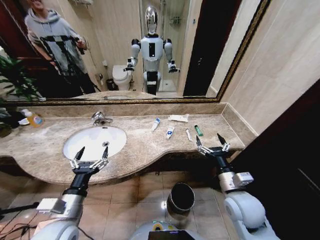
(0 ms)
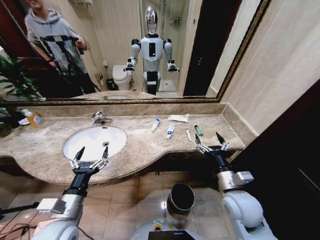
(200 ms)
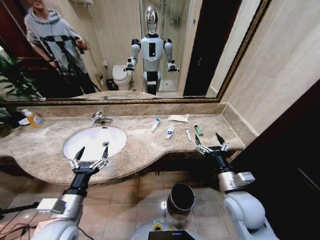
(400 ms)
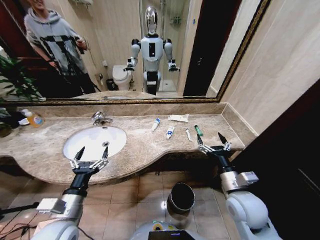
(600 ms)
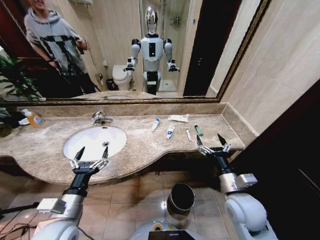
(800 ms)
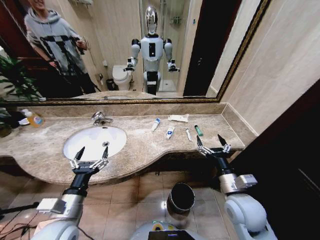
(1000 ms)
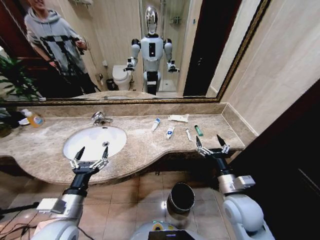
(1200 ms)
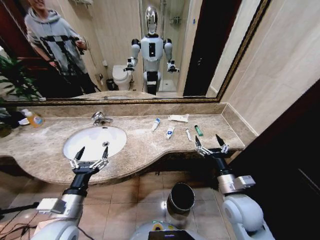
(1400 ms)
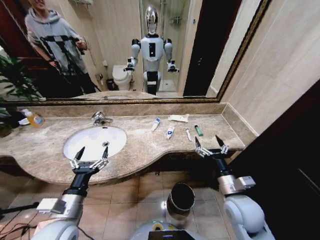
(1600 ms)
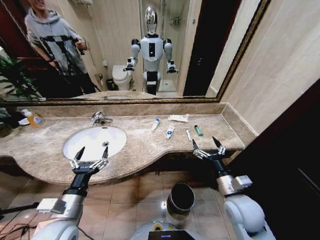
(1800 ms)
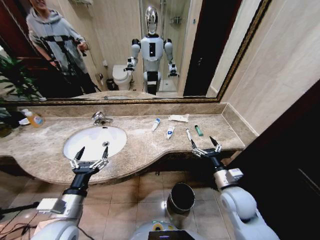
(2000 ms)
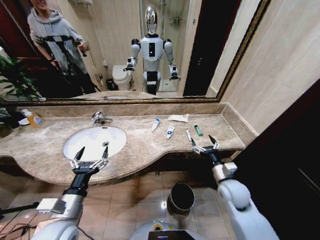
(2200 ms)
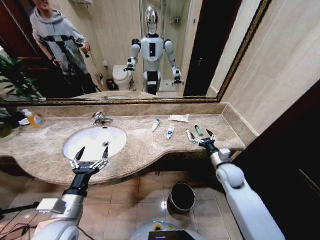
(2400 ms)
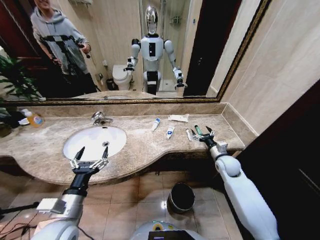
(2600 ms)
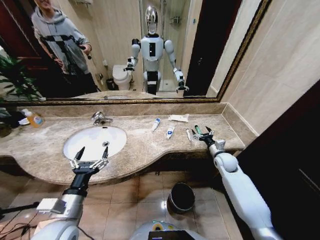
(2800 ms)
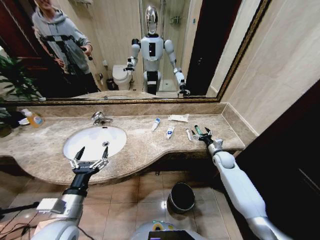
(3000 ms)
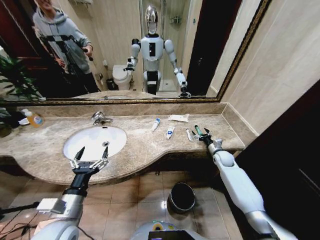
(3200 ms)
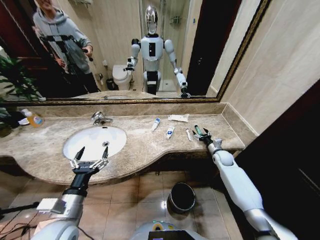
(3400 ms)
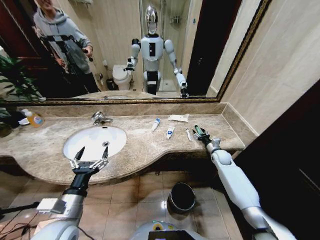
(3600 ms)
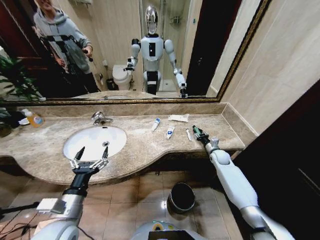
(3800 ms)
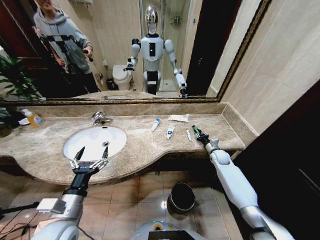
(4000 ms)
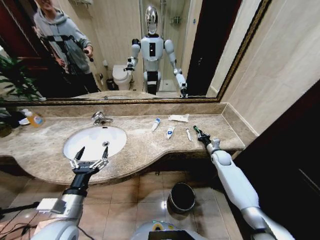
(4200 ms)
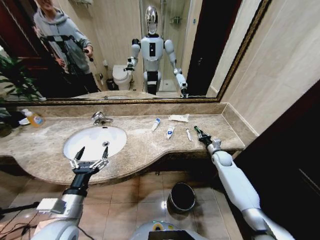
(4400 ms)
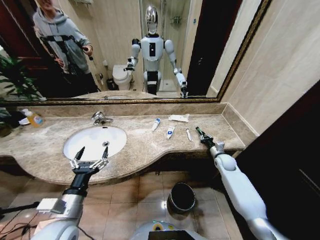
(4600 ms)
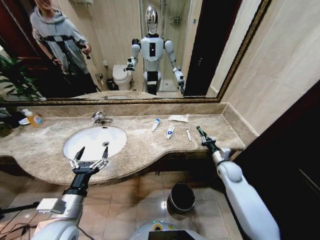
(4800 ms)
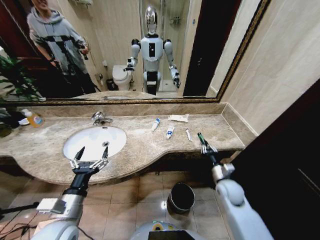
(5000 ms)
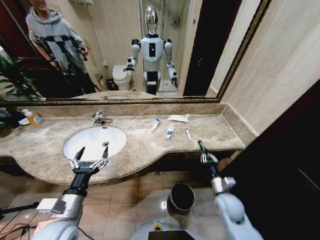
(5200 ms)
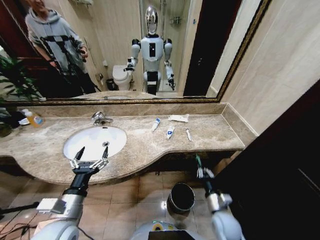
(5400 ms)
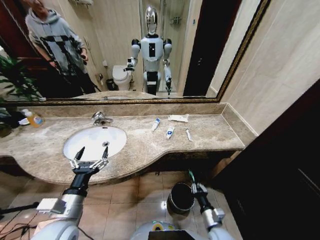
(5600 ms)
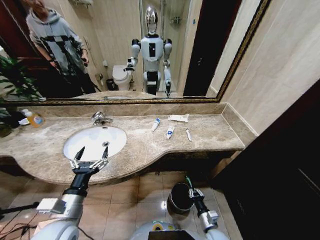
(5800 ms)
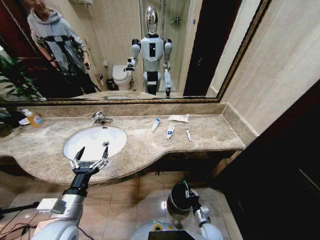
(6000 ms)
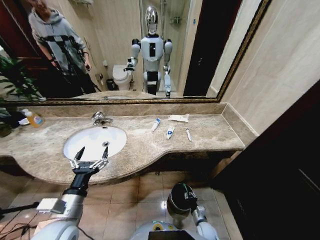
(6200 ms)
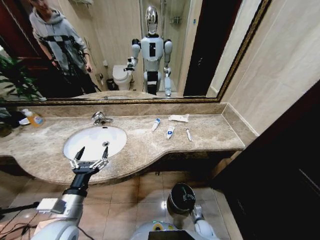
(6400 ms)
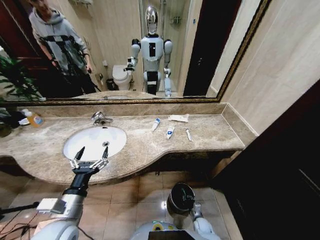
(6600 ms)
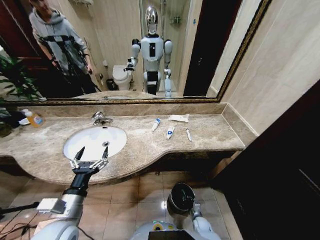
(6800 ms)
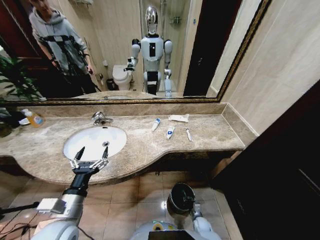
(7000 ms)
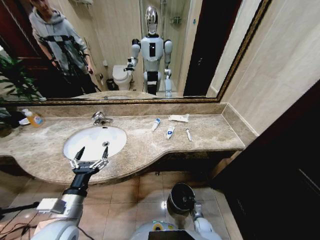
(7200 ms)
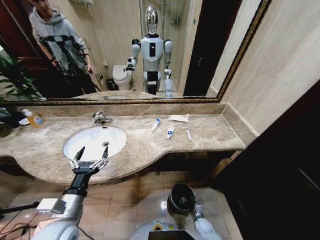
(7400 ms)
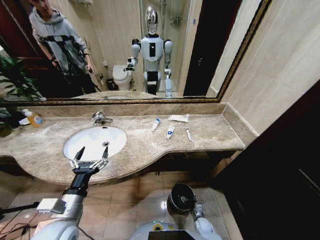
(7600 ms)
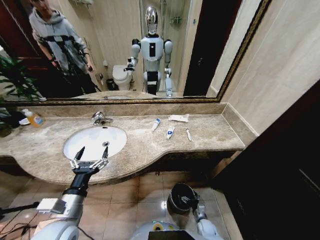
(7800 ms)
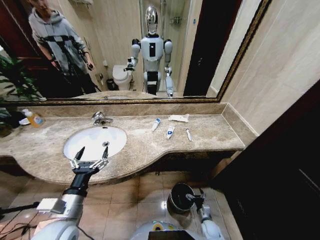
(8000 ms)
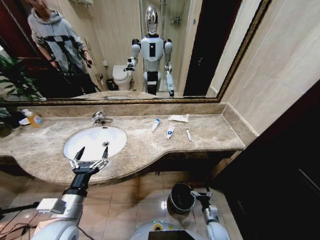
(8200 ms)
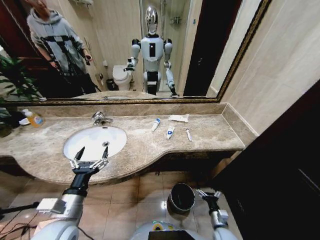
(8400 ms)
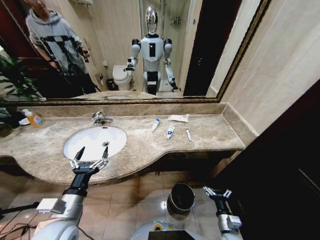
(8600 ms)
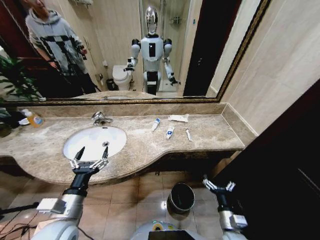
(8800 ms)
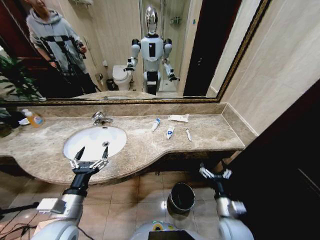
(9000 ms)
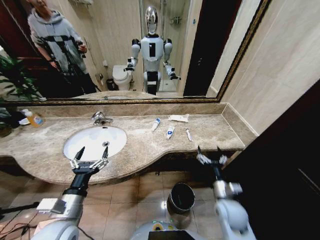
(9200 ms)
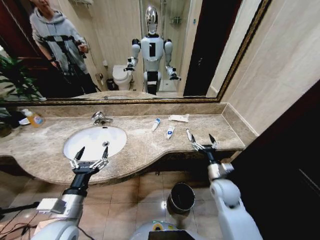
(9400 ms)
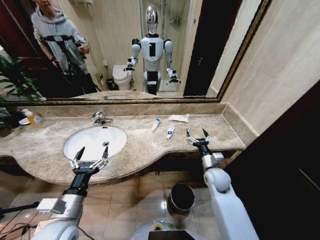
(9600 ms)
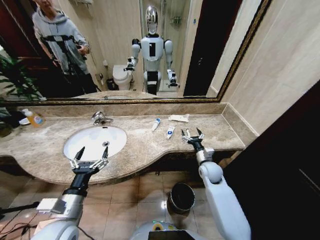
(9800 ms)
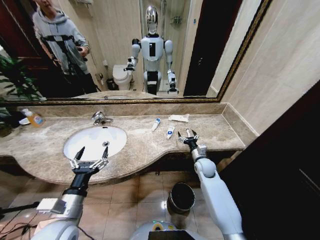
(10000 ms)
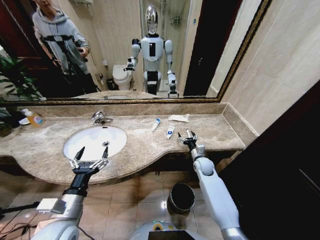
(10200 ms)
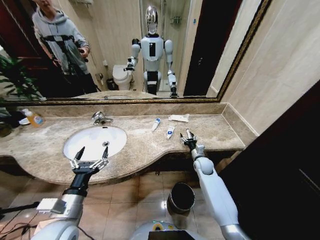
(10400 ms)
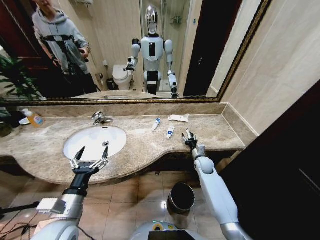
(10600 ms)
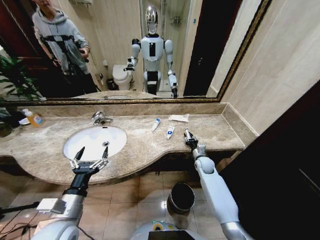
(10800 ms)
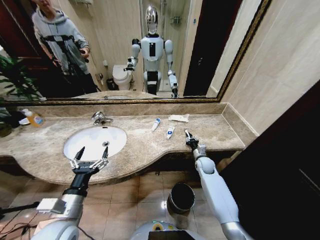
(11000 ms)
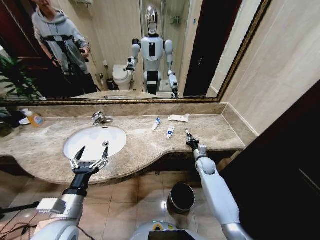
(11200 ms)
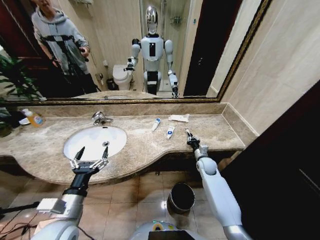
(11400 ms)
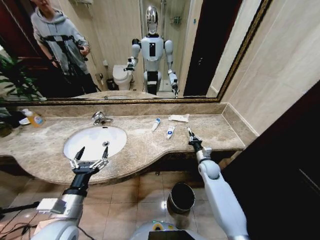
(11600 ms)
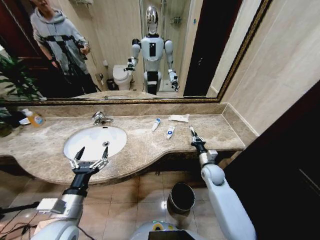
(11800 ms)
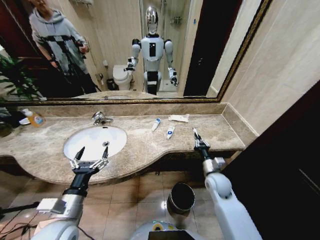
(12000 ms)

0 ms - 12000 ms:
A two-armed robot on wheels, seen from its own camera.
Task of the whole recording: Pick up the trash from the sink and place it in the trash bin.
1600 ms - 3000 ms: The right gripper heads forward, to the right and downward, covering about 30 cm.
3000 ms - 4400 ms: The right gripper closes.
4400 ms - 6000 ms: The right gripper travels backward, downward and to the left by some 40 cm.
6000 ms - 7600 ms: The right gripper is displaced downward by roughly 10 cm, and opens up.
7600 ms - 9000 ms: The right gripper travels upward by approximately 30 cm.
9000 ms - 10400 ms: The right gripper goes approximately 25 cm forward.
10400 ms - 12000 ms: The right gripper moves backward, some 10 cm, and closes.

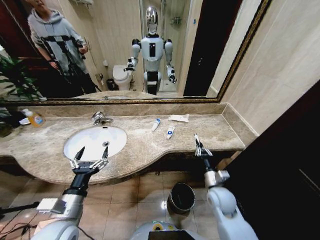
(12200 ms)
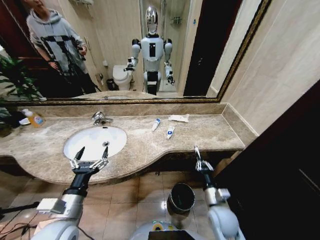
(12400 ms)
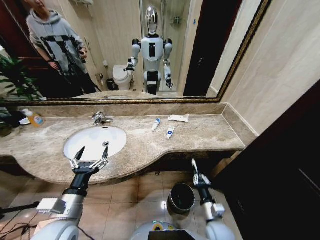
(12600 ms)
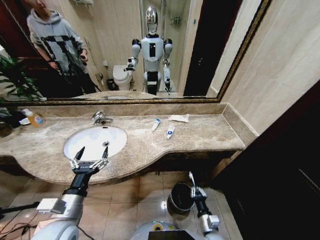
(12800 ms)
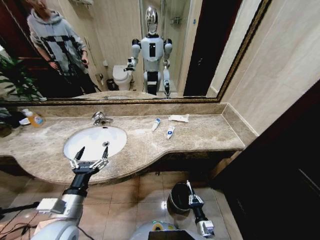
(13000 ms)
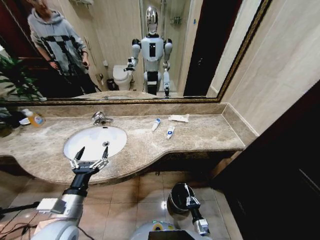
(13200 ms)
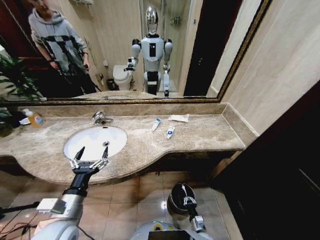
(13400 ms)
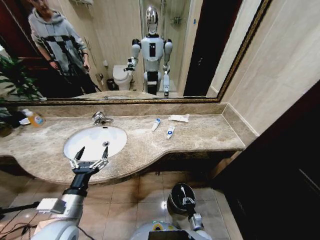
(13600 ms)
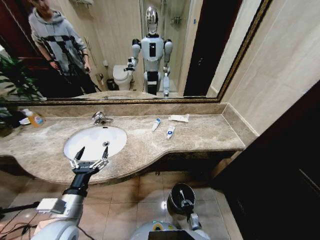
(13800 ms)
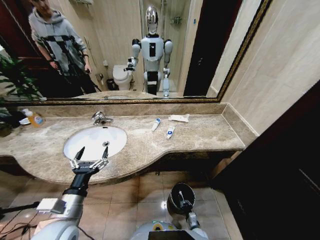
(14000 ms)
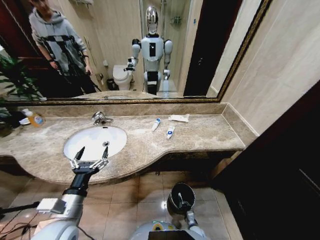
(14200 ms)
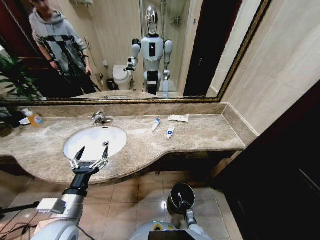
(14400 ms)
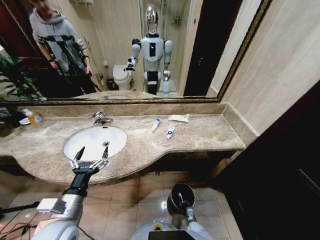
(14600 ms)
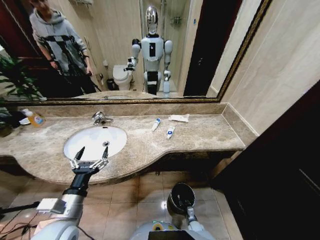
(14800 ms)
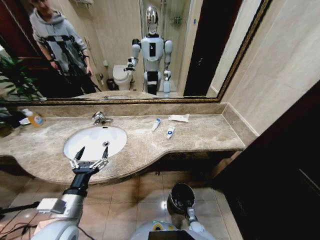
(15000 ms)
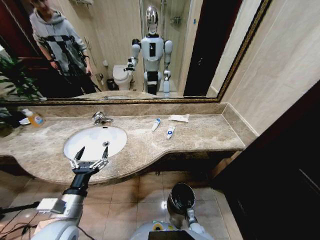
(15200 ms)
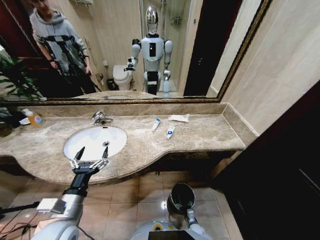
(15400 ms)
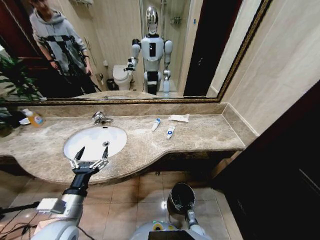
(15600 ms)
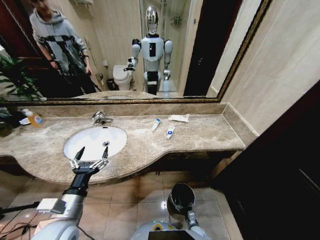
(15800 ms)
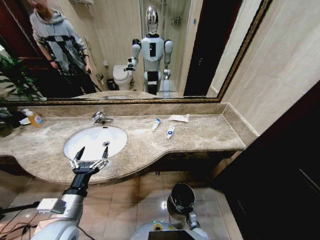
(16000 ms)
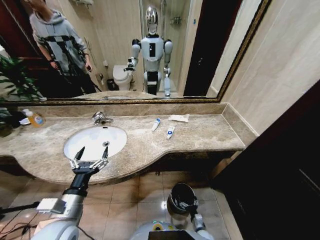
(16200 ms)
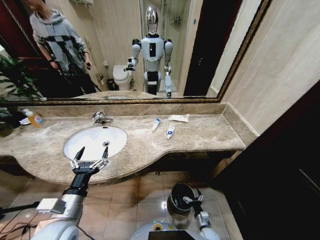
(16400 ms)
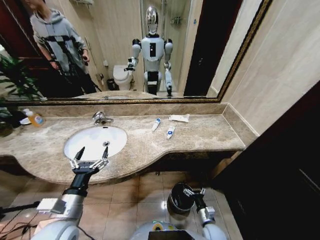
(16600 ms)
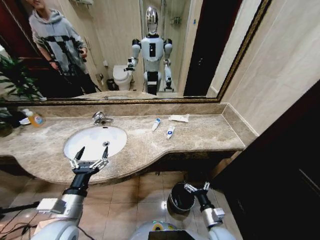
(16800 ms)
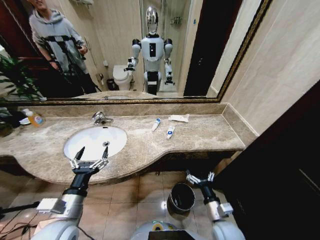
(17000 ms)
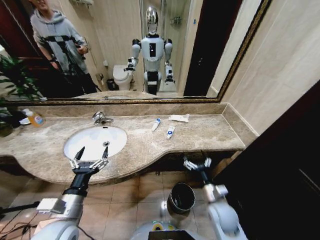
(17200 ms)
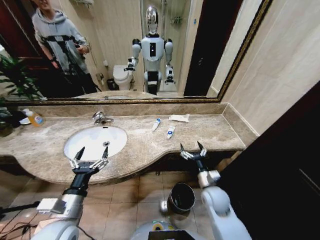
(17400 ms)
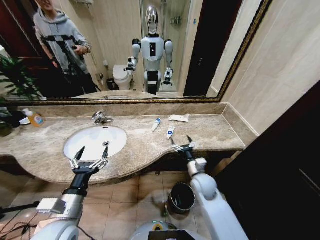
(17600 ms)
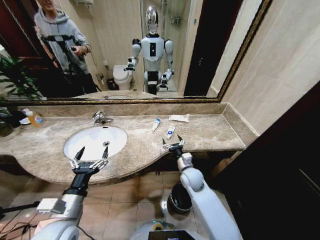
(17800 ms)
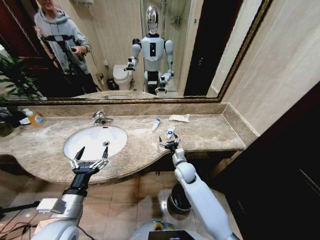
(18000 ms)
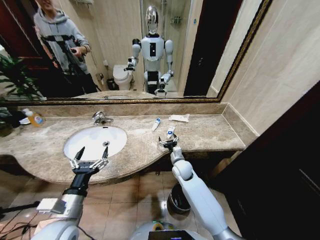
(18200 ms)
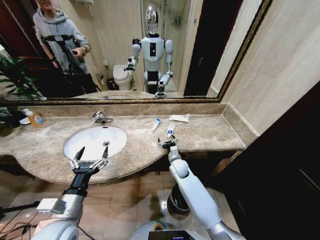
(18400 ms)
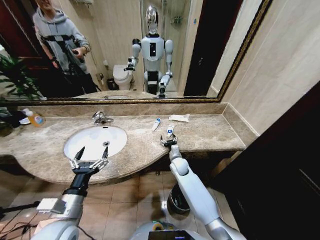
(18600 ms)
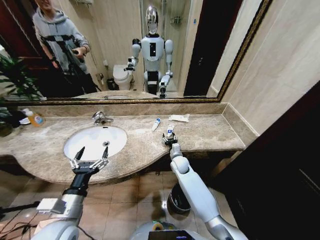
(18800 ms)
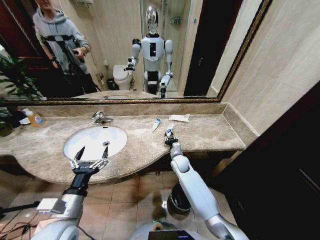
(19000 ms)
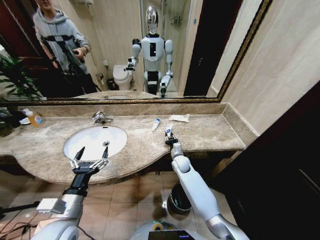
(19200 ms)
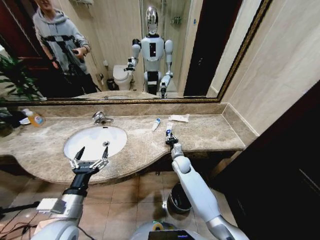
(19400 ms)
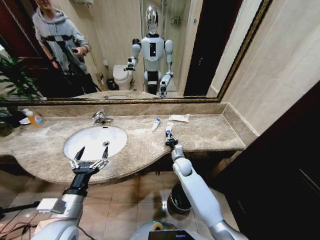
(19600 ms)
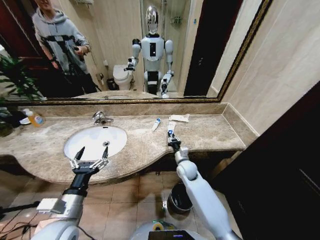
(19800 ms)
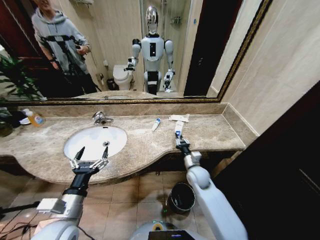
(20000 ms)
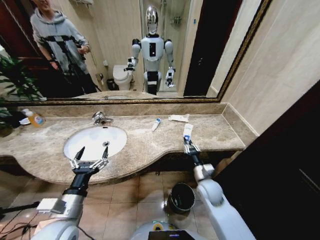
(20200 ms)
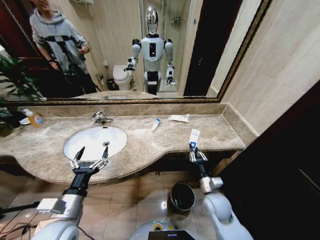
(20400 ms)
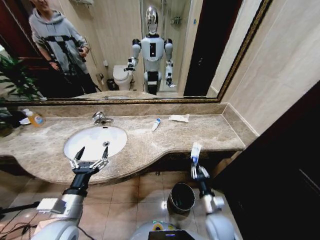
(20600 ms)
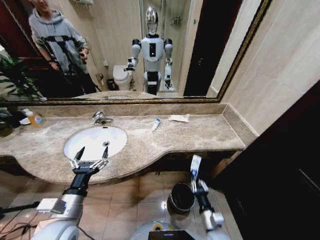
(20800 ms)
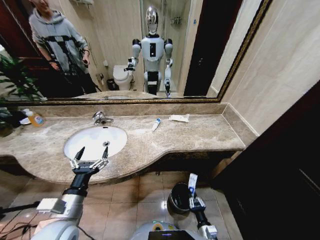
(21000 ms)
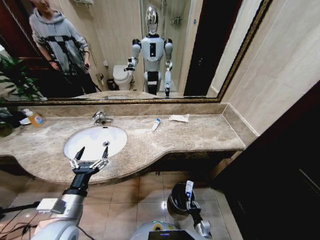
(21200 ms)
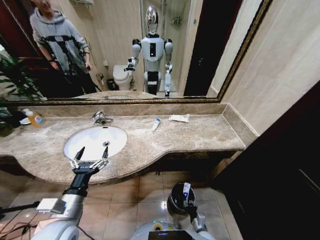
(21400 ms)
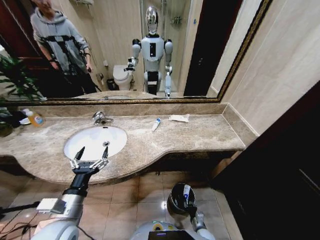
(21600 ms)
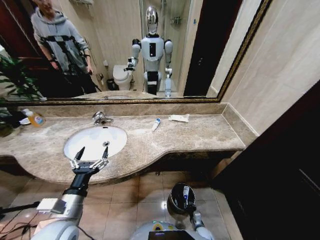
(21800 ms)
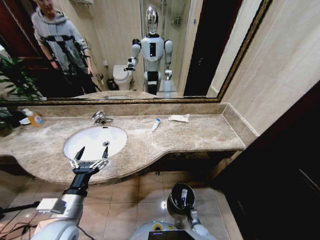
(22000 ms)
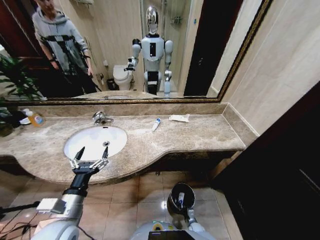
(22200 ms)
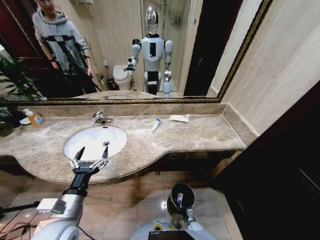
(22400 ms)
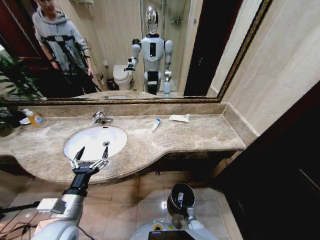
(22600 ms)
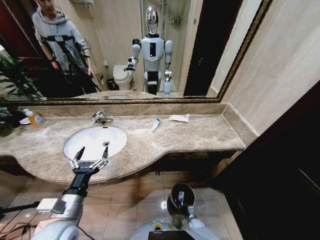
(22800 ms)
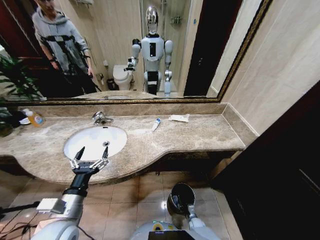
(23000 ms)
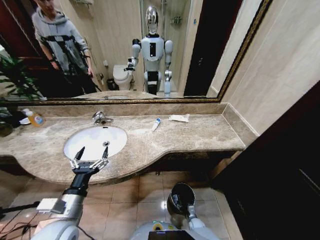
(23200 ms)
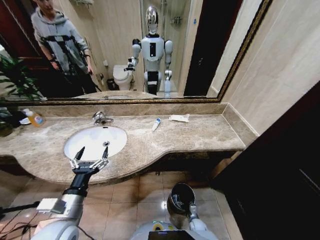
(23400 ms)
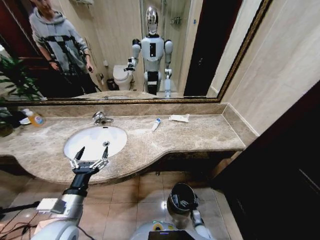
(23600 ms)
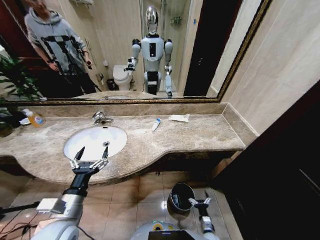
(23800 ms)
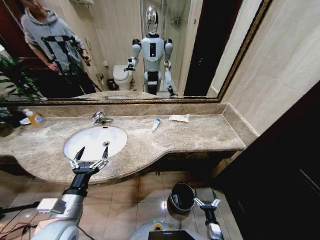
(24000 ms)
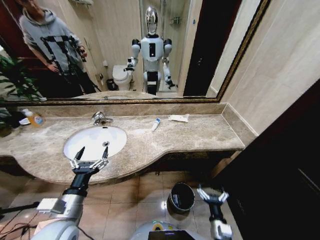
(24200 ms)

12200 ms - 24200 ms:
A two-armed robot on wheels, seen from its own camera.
Task of the whole recording: Pick up the trash from the sink and place it in the trash bin.
12200 ms - 13800 ms: The right gripper moves downward, roughly 35 cm.
13800 ms - 15200 ms: The right gripper heads downward, covering some 5 cm, and opens.
15200 ms - 16600 ms: The right gripper moves upward, roughly 20 cm.
16600 ms - 18200 ms: The right gripper moves forward, upward and to the left, some 35 cm.
18200 ms - 19800 ms: The right gripper closes its fingers.
19800 ms - 21200 ms: The right gripper travels backward and downward by some 35 cm.
21200 ms - 22600 ms: The right gripper shifts some 15 cm downward and forward.
22600 ms - 24200 ms: The right gripper moves upward and backward, some 25 cm, and opens.
